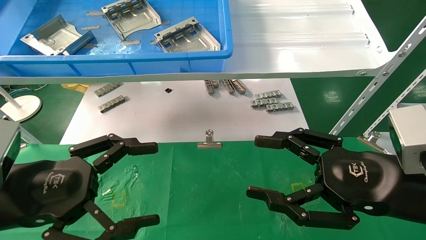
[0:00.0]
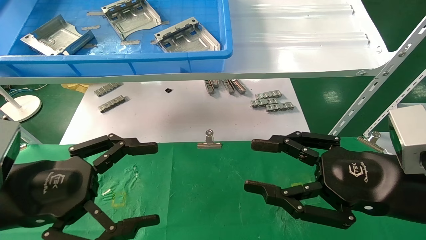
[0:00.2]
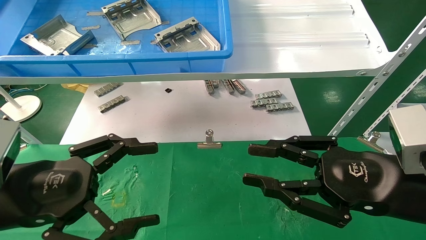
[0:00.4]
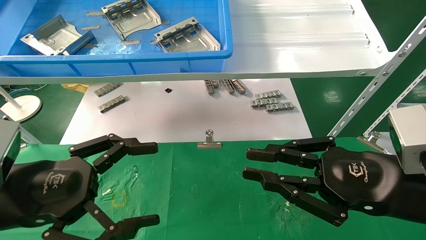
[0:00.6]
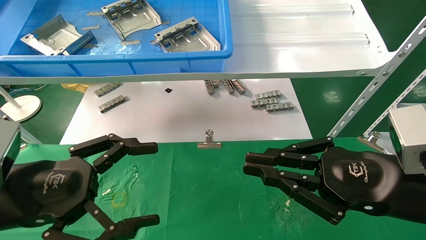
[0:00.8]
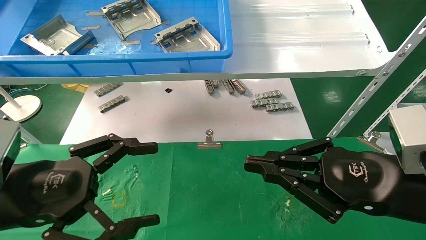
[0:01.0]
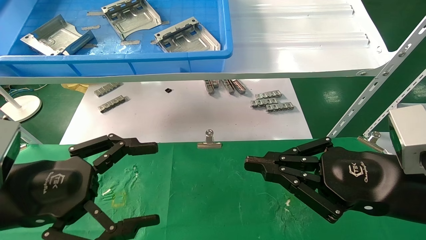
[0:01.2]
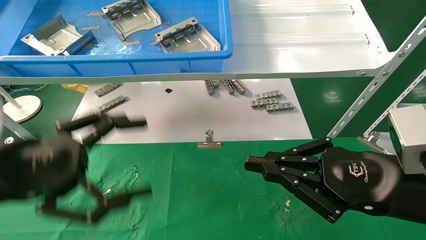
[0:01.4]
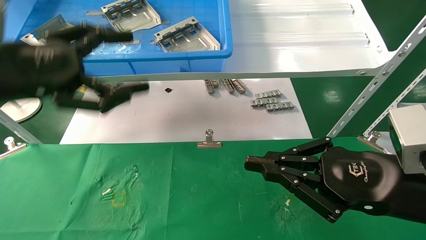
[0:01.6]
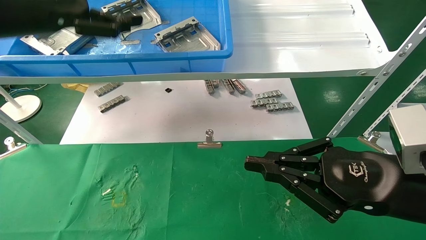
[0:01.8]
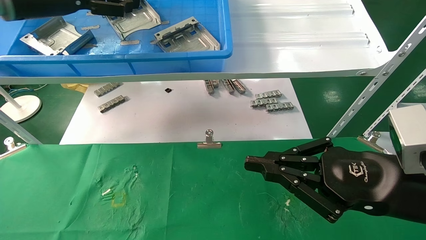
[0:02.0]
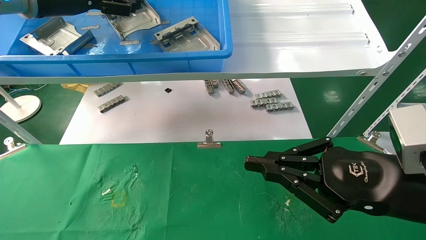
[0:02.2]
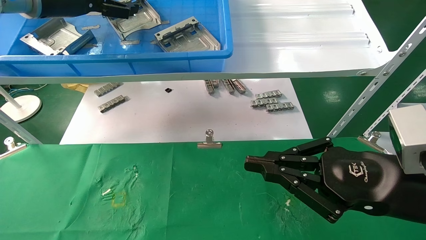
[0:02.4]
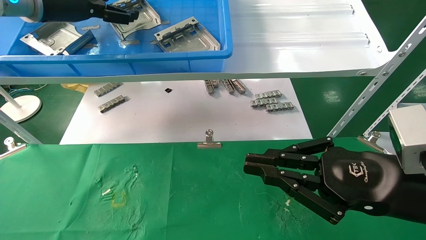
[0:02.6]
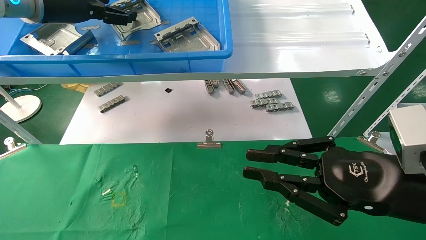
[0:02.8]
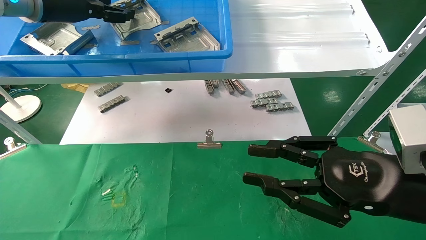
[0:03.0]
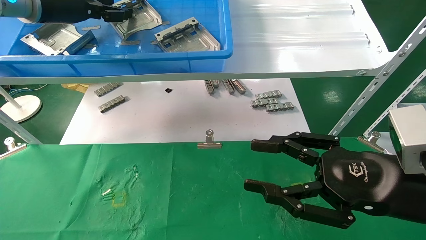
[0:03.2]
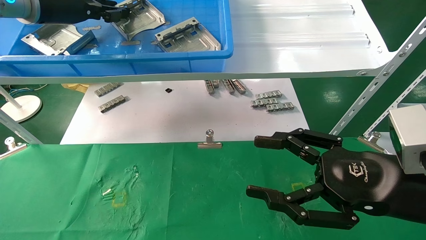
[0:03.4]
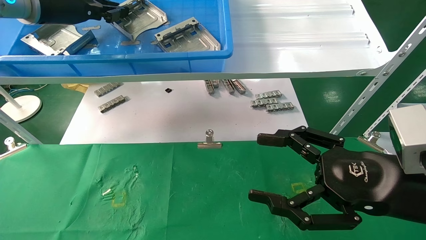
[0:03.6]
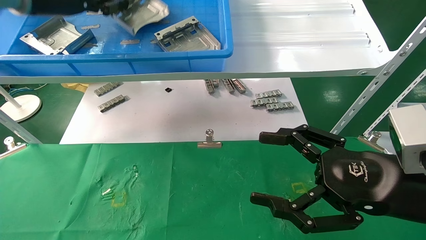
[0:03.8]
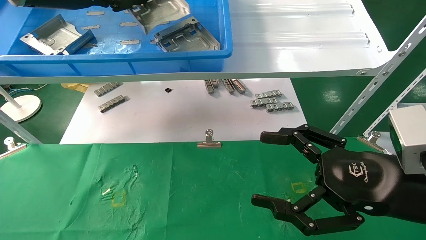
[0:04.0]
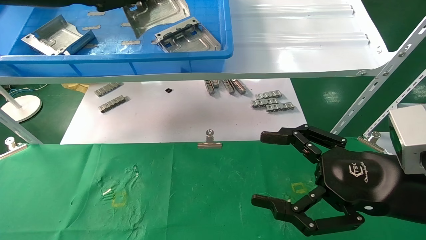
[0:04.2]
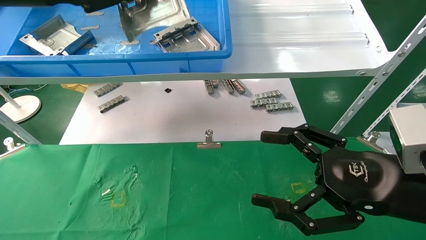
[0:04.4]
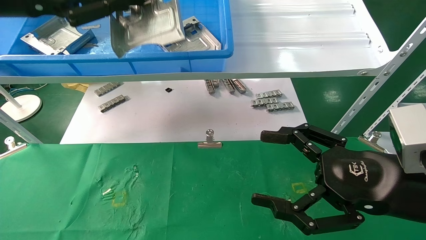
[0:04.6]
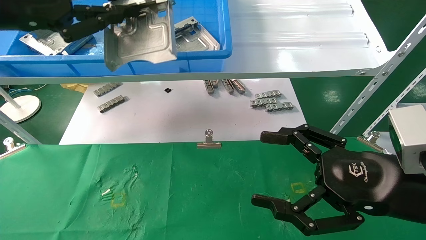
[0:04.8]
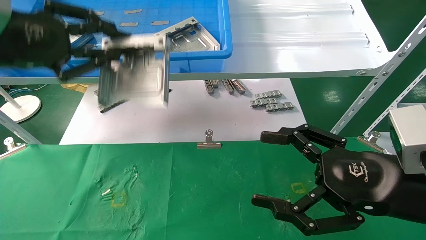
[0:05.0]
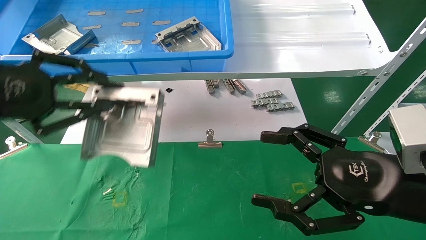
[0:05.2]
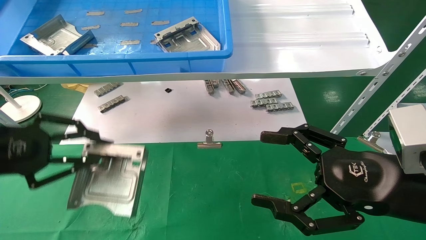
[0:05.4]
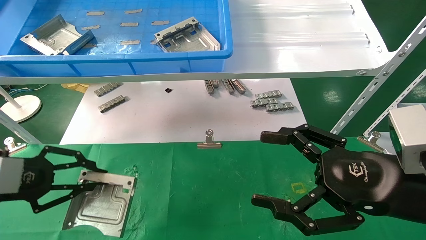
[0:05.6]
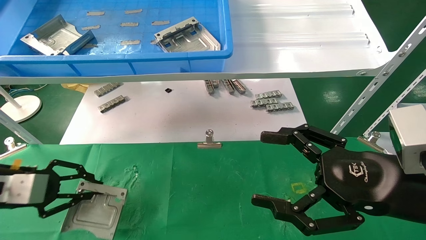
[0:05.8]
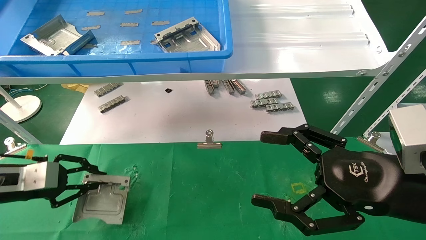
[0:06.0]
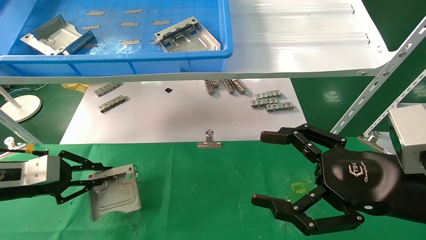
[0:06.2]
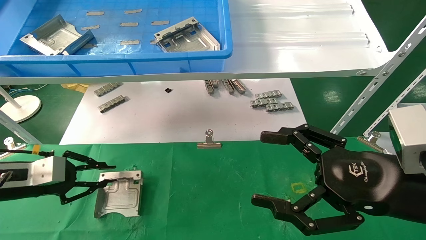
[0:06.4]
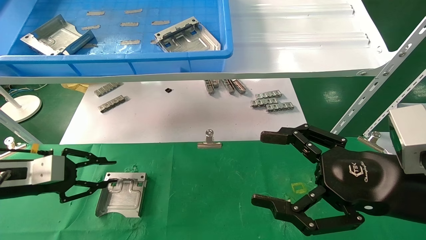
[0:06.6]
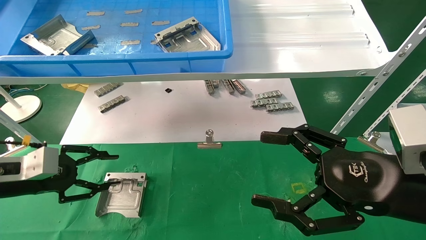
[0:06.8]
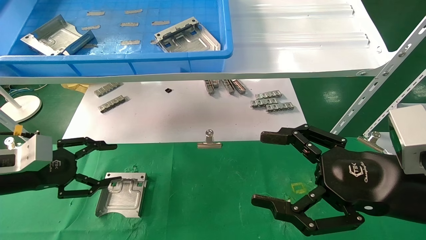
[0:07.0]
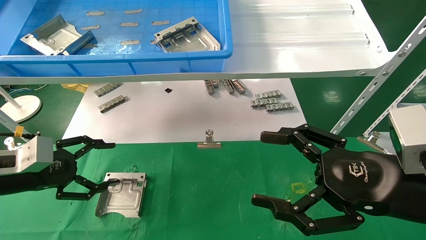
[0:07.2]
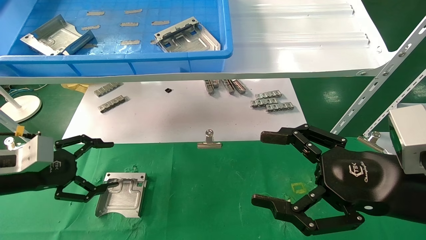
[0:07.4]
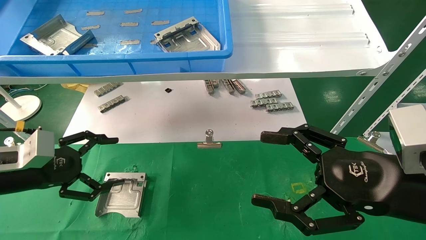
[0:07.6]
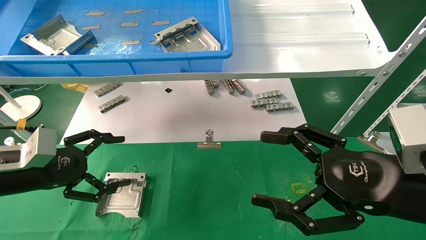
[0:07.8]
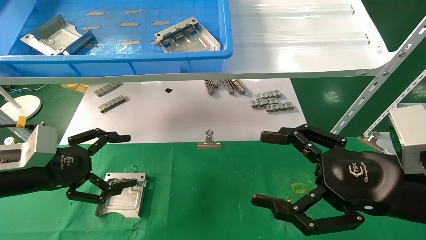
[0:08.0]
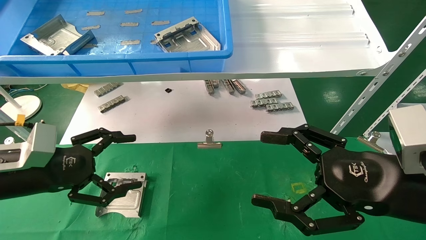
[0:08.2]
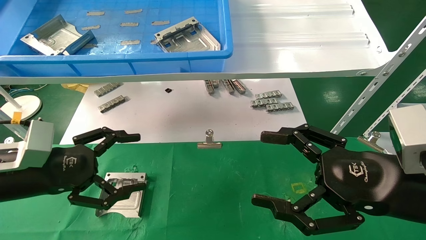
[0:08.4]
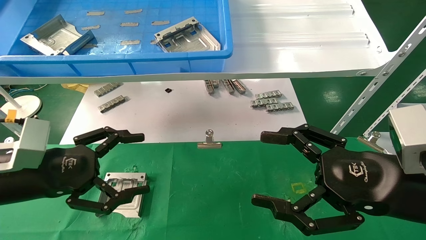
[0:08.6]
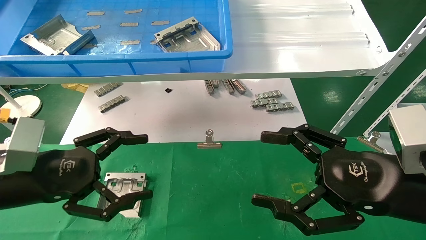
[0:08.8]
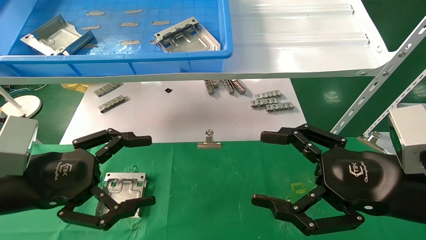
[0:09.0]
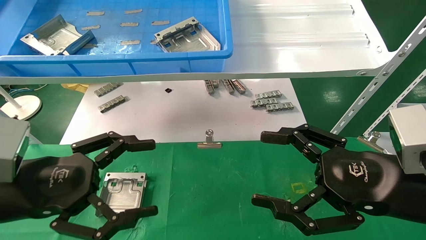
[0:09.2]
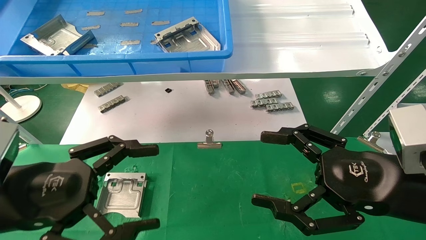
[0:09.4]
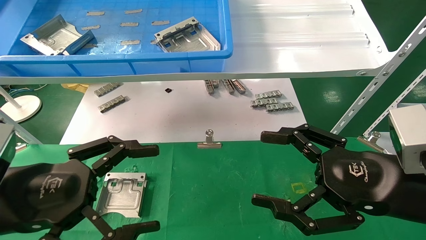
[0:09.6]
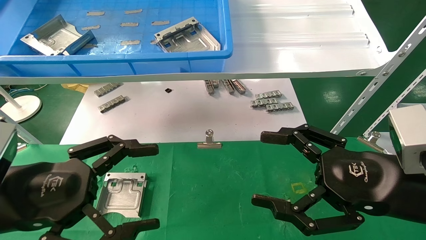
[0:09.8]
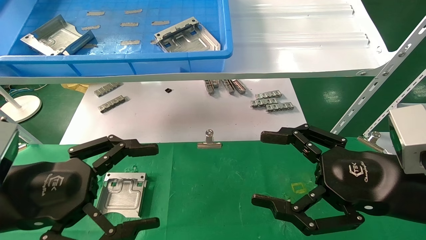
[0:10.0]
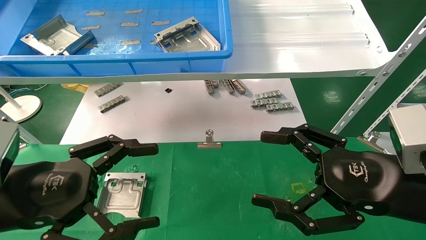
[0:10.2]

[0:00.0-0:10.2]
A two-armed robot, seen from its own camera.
Task of the whole recording: use the mechanical arm to pick up the parts and place them on the table.
Step, 0:01.6 to 0:03.6: Pick up the hard drive bracket from the feeding area.
Step, 0:03.8 to 0:07.0: Place the hard drive bracket into the box.
0:00.0 to 0:01.4: The right gripper closes. The left gripper is displaced upward by about 5 cm.
0:01.4 to 0:03.0: The left gripper travels forward and upward by approximately 25 cm.
0:03.0 to 0:04.4: The left gripper moves backward, roughly 10 cm, and closes up; the right gripper opens.
0:04.4 to 0:05.8: The left gripper goes approximately 30 cm downward.
0:05.8 to 0:07.2: The left gripper opens up.
0:07.2 to 0:08.8: The left gripper moves to the right and backward, roughly 10 cm.
0:08.8 to 0:10.2: The left gripper changes place by about 5 cm.

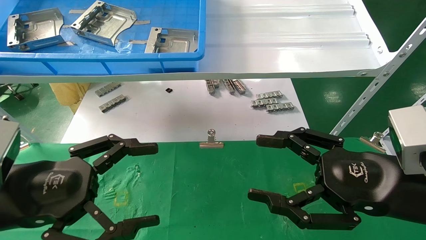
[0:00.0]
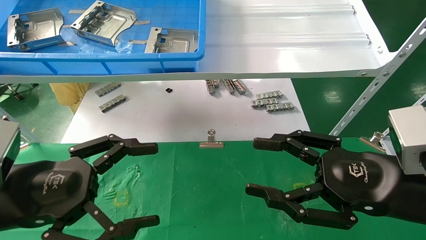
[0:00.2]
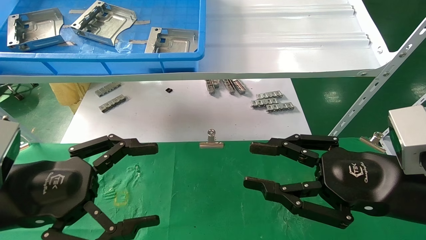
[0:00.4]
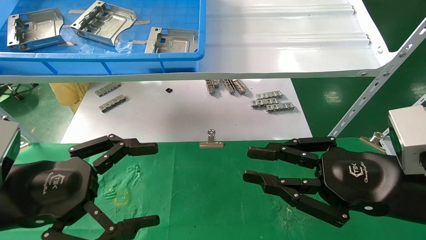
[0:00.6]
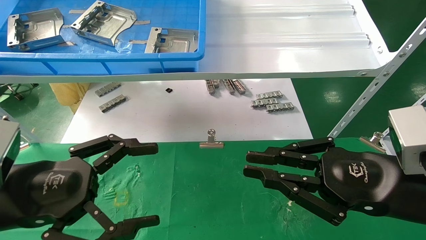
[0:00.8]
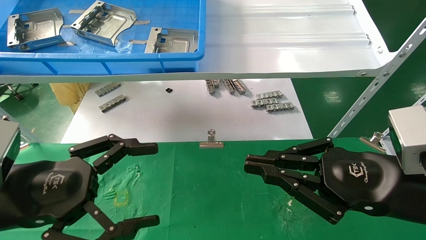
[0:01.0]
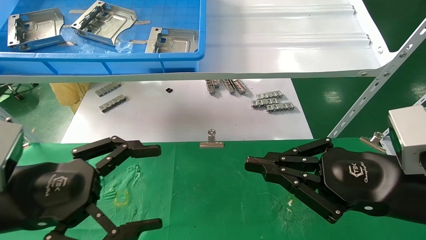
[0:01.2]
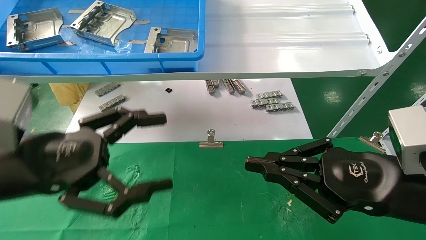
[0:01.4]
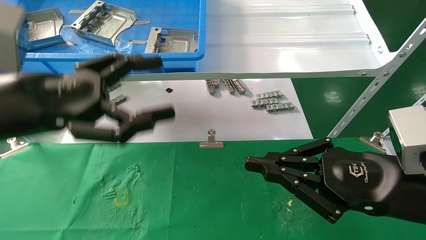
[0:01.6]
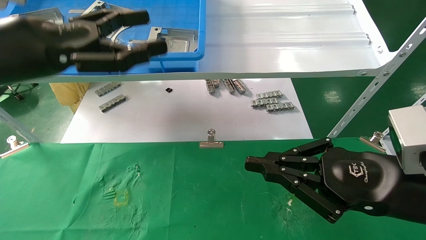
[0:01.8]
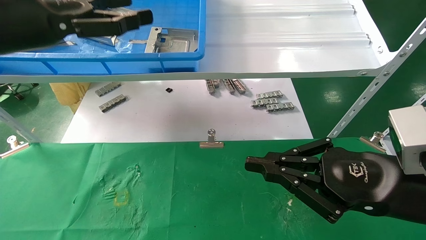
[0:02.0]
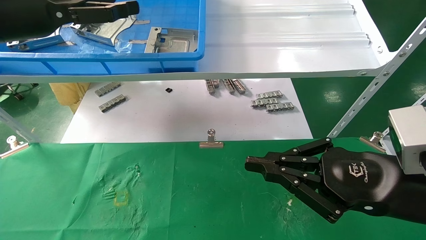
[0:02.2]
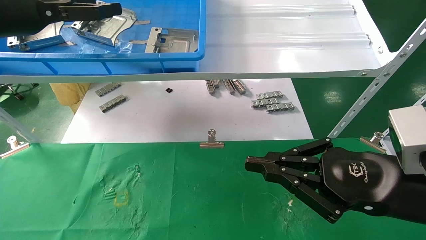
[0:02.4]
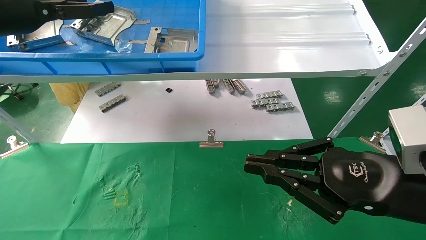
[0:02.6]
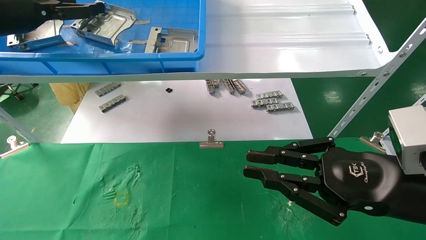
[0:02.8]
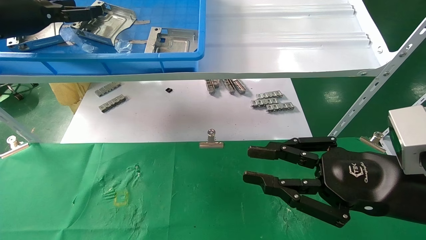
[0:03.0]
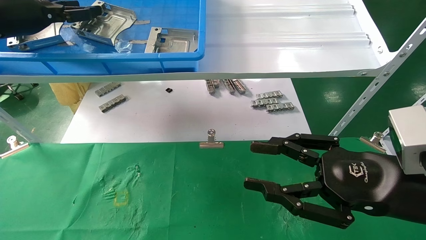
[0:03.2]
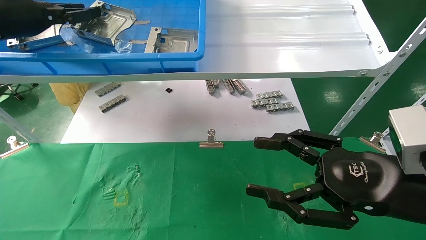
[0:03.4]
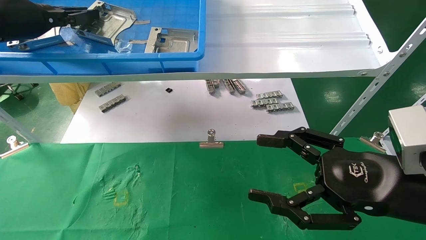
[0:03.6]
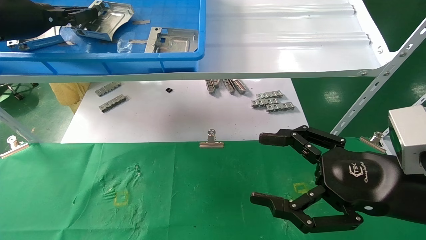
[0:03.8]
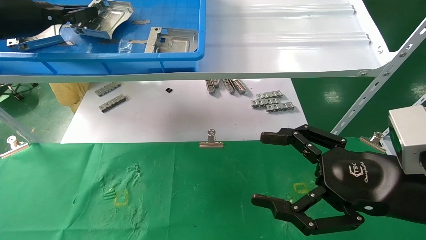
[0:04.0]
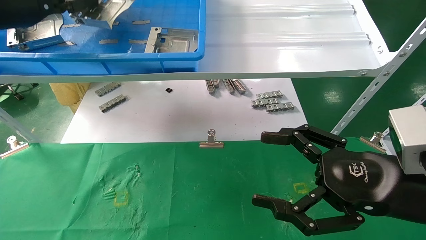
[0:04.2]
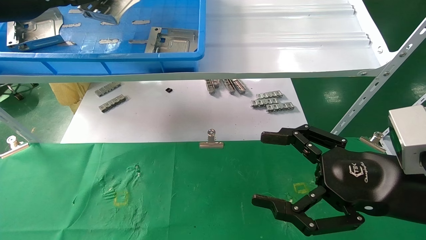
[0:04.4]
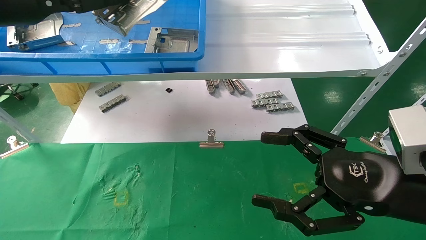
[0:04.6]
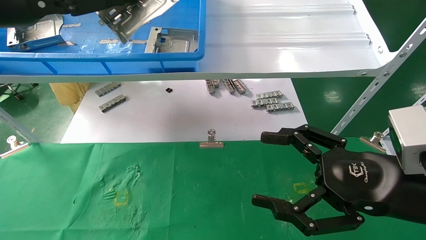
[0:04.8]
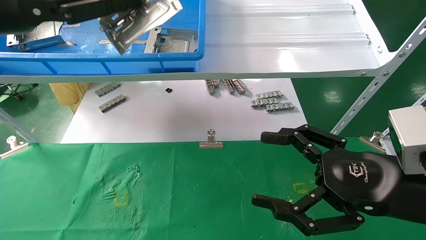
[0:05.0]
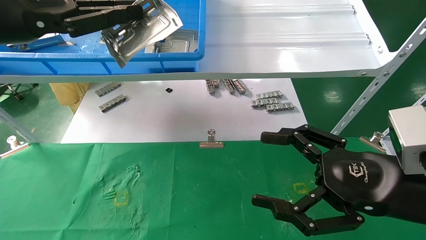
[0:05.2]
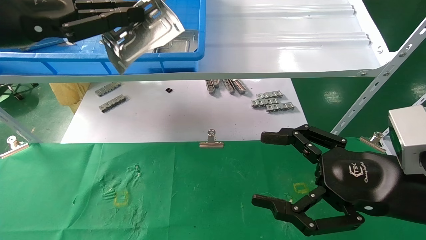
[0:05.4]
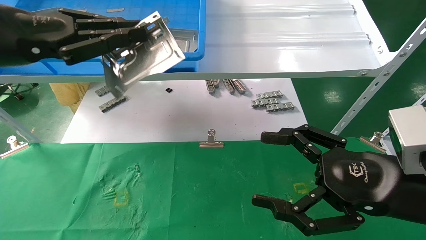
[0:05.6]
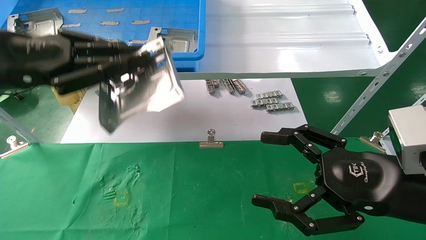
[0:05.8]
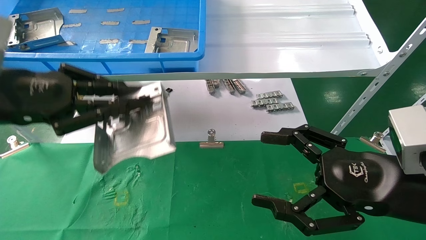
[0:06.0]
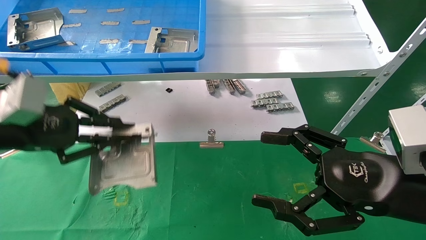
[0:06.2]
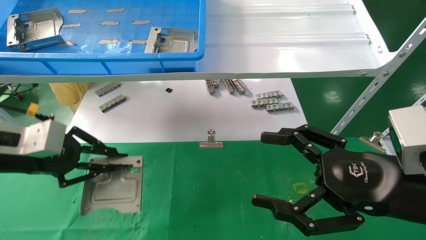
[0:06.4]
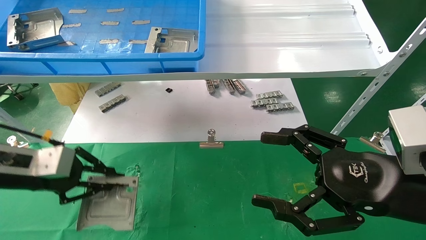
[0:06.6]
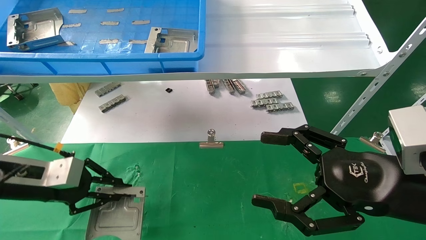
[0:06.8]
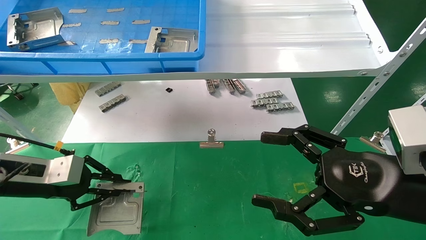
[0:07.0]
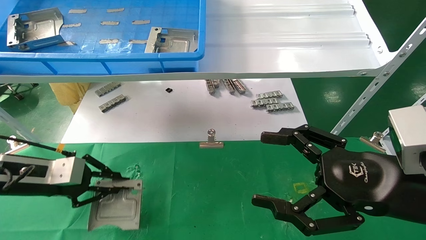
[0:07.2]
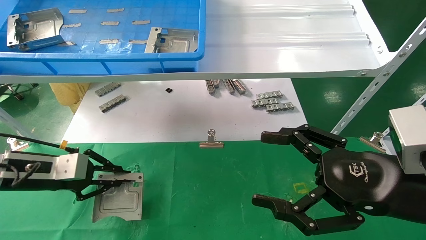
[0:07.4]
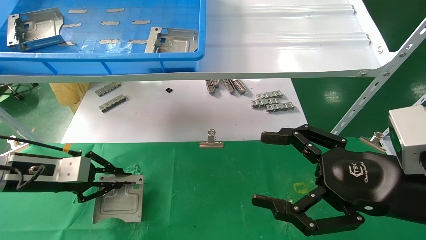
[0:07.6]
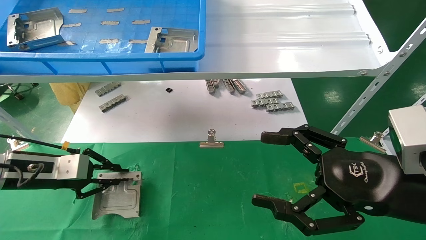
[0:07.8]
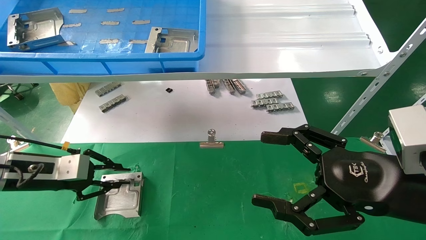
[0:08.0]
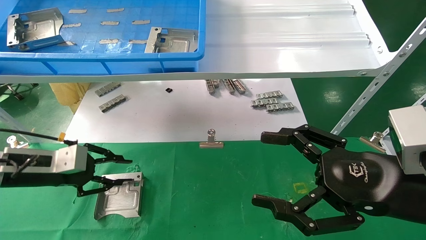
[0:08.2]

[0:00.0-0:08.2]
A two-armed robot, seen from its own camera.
Task of the whole recording: use the mechanical arm to pick up the parts and place them on the table.
Step, 0:01.6 to 0:04.6: Pick up the hard drive bracket from the feeding area.
Step, 0:04.8 to 0:08.2: Place the hard drive bracket into the box.
0:00.0 to 0:01.6: The right gripper closes up; the left gripper goes approximately 10 cm upward.
0:01.6 to 0:03.2: The left gripper travels forward, upward and to the left by some 20 cm. Meanwhile the right gripper opens.
0:03.2 to 0:05.0: The right gripper opens up. The left gripper moves backward and to the right, about 10 cm, and closes its fingers.
0:05.0 to 0:06.6: The left gripper is displaced downward by about 20 cm.
0:06.6 to 0:08.2: The left gripper shifts by roughly 5 cm.
